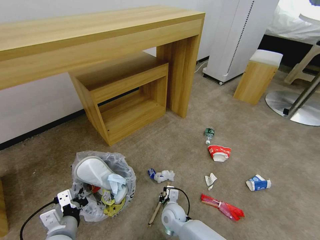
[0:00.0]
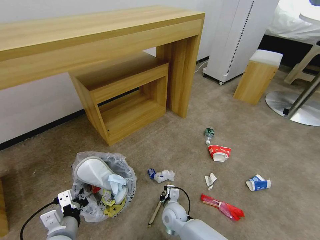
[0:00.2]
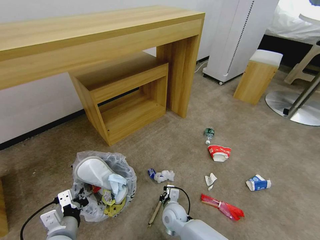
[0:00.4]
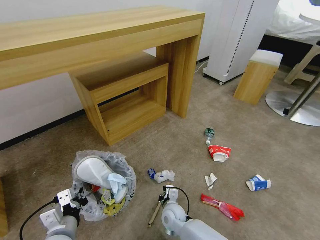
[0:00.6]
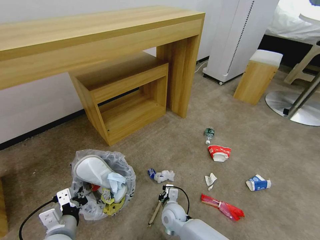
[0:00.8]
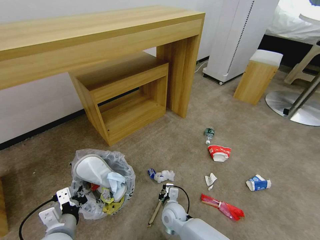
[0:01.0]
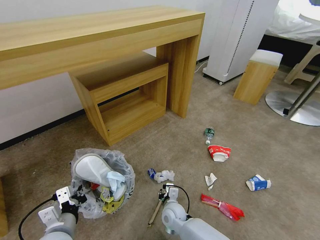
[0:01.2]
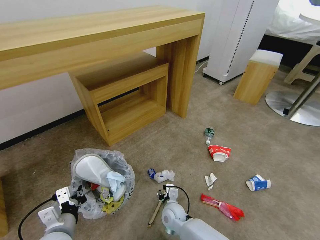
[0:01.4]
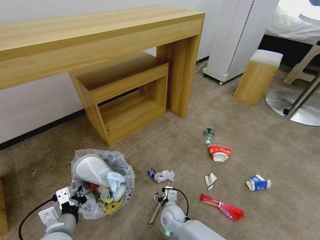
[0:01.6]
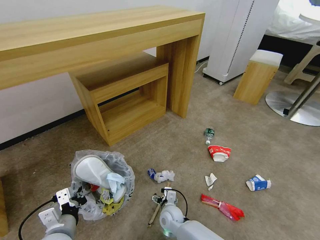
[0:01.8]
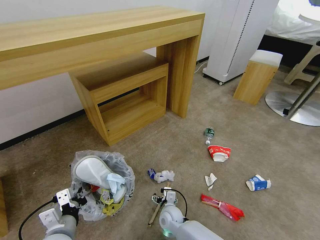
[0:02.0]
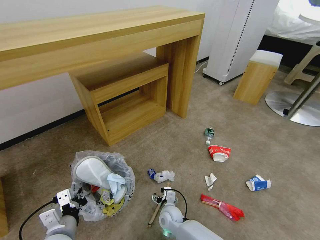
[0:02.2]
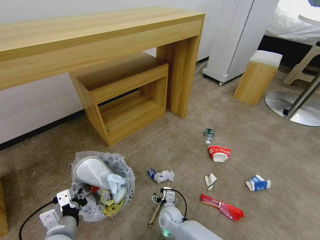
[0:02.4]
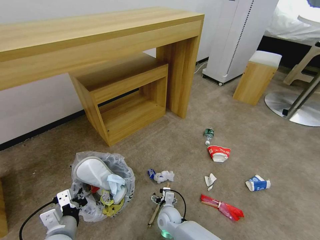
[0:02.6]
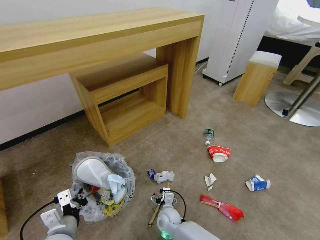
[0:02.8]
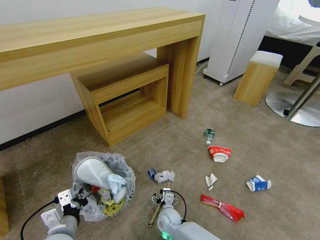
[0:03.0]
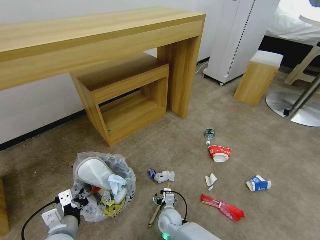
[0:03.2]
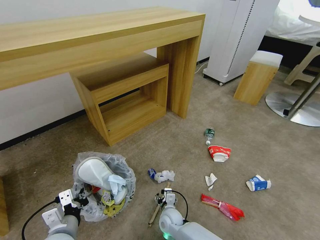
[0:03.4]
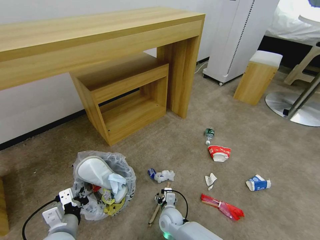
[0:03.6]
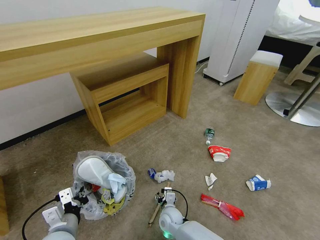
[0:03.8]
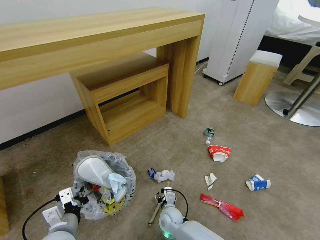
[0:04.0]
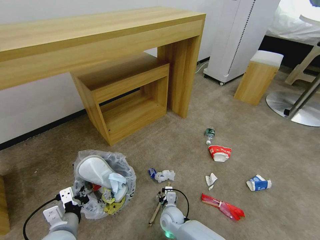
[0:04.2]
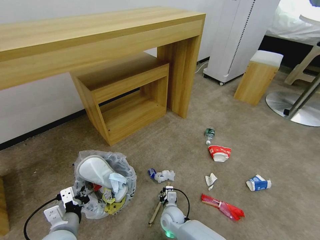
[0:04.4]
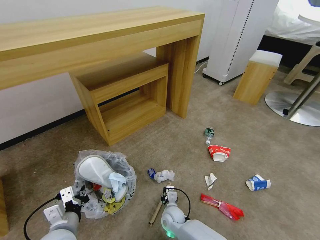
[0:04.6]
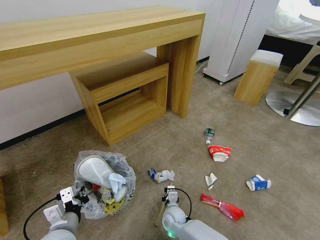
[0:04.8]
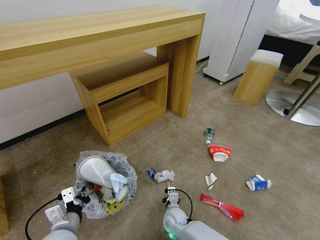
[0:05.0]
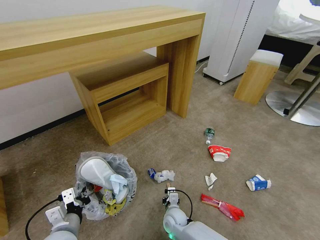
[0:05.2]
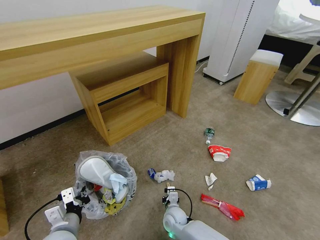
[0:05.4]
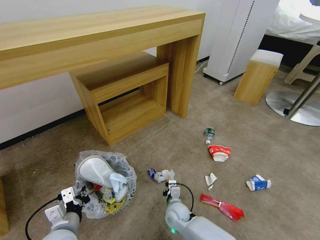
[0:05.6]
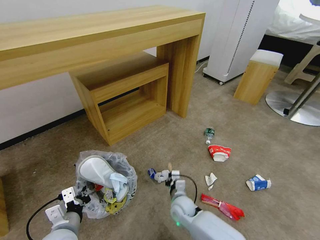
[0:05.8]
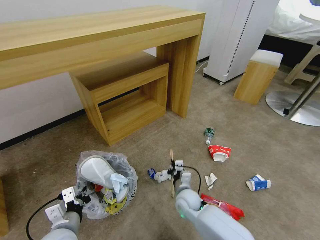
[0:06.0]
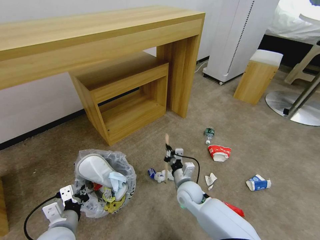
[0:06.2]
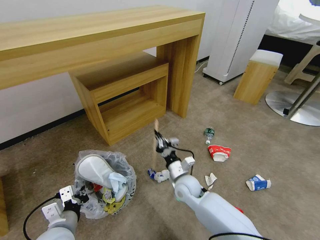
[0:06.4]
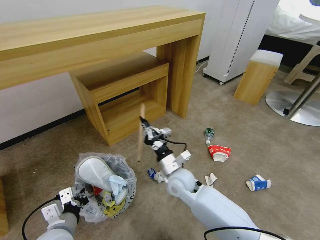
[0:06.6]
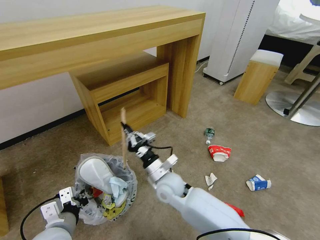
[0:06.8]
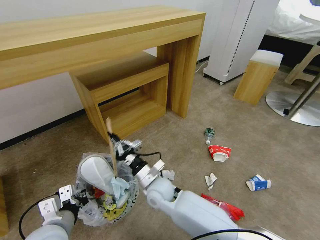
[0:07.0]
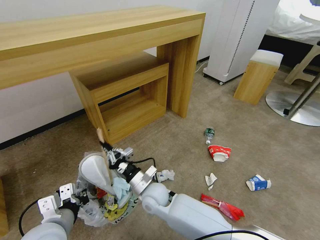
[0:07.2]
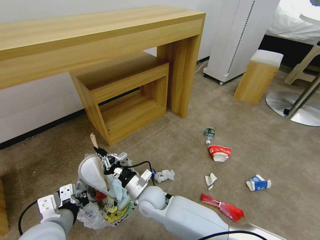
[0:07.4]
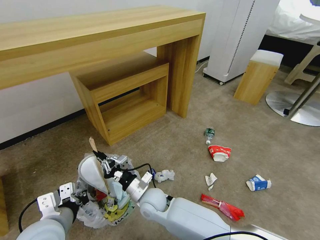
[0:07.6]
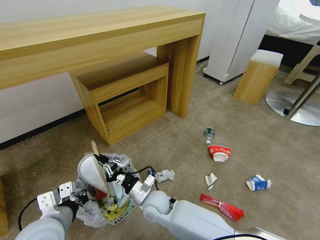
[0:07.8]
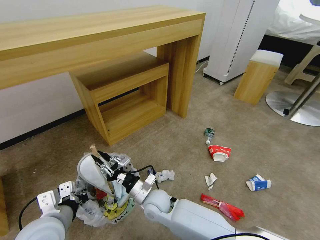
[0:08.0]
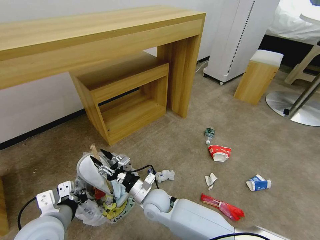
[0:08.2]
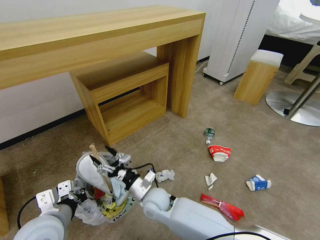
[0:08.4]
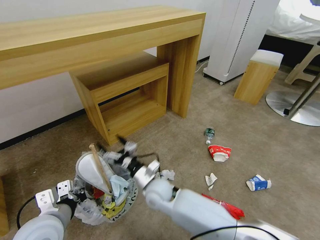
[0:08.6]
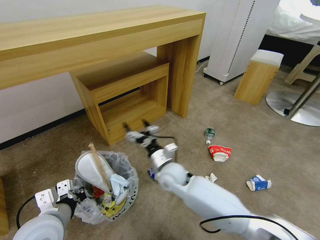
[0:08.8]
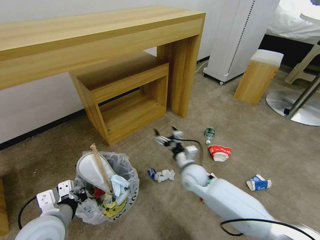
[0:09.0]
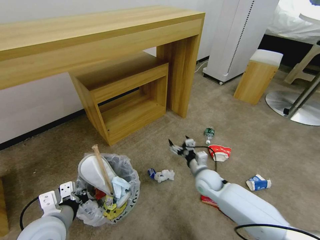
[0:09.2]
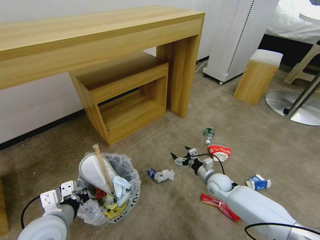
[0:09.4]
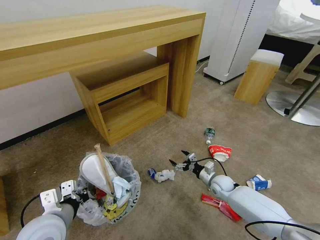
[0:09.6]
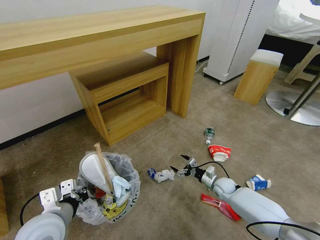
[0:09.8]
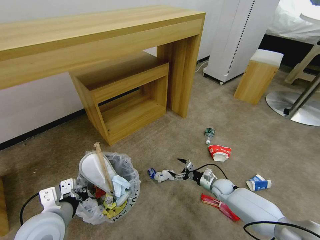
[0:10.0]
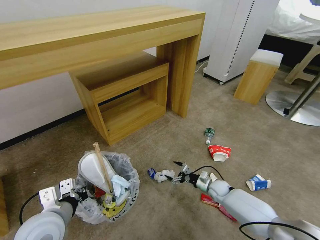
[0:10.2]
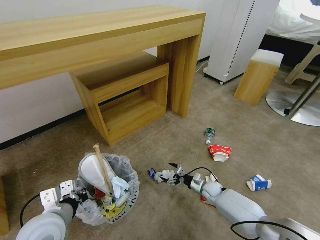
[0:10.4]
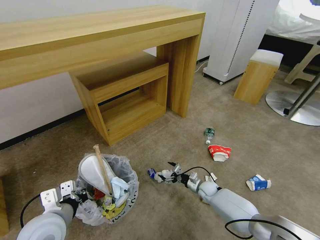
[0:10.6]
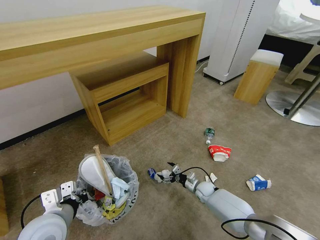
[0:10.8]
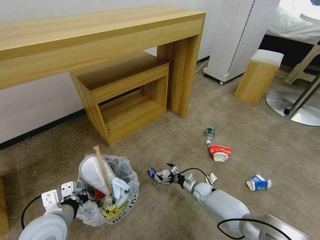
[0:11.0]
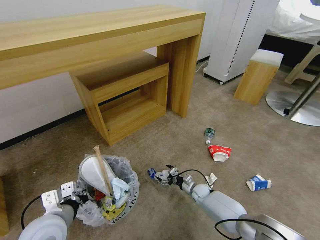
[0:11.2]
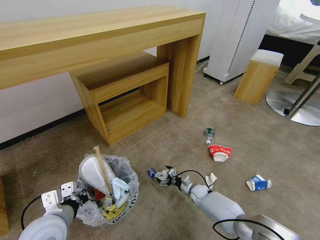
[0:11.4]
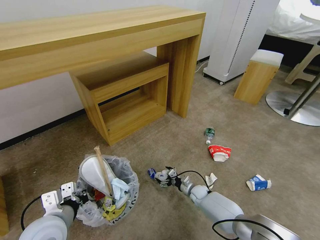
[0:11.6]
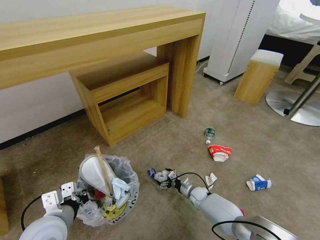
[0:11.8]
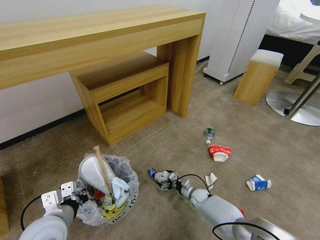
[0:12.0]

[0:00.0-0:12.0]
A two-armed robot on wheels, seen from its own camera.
Task of the whole recording: Pick up the trash bin and place the garbage on the floor into it.
0:00.0 to 0:01.6: The right gripper opens.
0:01.6 to 0:03.0: The grippers make only small movements.
0:03.0 to 0:04.4: The right gripper closes its fingers.
0:04.4 to 0:06.0: The right gripper heads upward and to the right, covering some 10 cm, and closes.
0:06.0 to 0:07.6: The left gripper travels upward by approximately 10 cm, while the right gripper heads to the left and upward, covering approximately 15 cm.
0:07.6 to 0:09.0: The right gripper heads to the right and forward, covering roughly 15 cm, and opens its fingers.
0:09.0 to 0:10.4: The right gripper heads downward and to the right, covering some 25 cm.
0:10.4 to 0:12.0: The right gripper heads downward, covering roughly 5 cm.

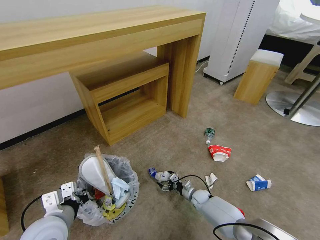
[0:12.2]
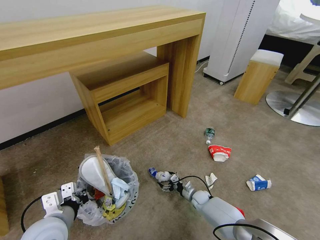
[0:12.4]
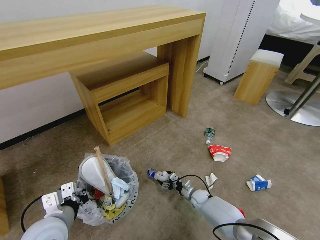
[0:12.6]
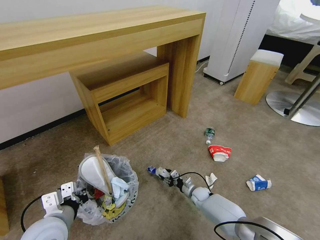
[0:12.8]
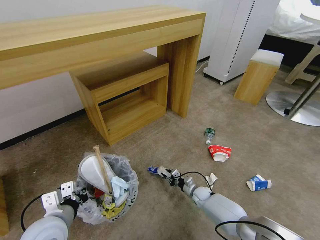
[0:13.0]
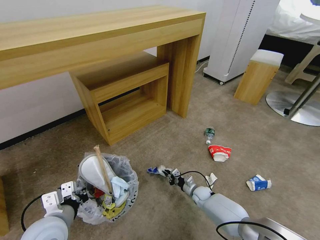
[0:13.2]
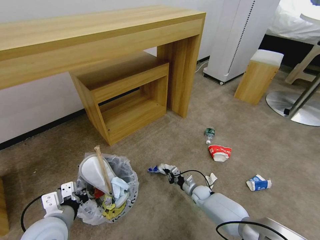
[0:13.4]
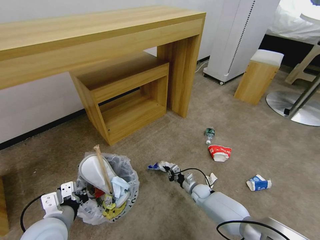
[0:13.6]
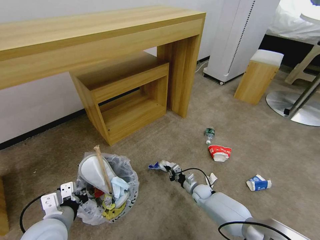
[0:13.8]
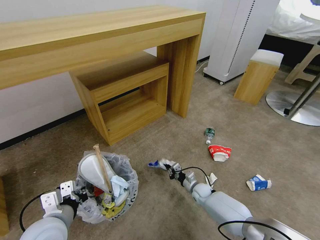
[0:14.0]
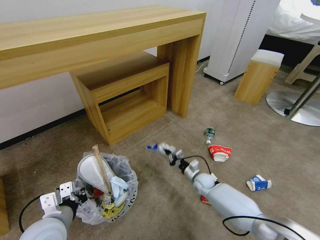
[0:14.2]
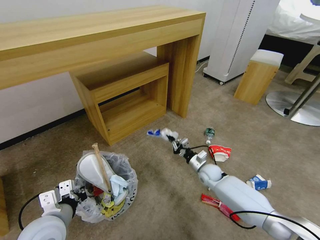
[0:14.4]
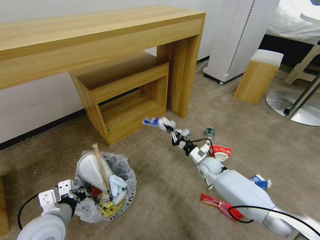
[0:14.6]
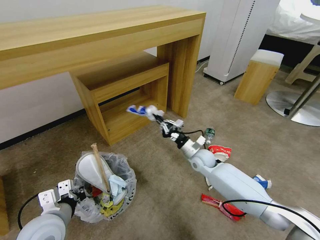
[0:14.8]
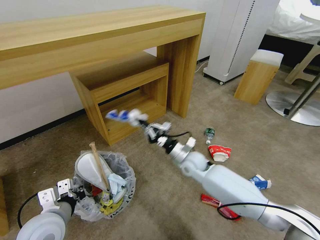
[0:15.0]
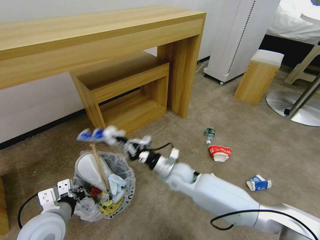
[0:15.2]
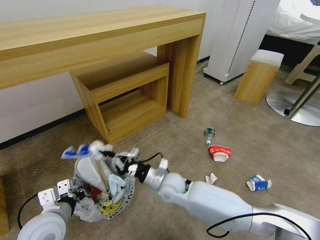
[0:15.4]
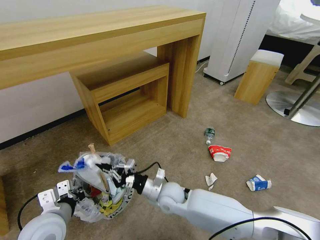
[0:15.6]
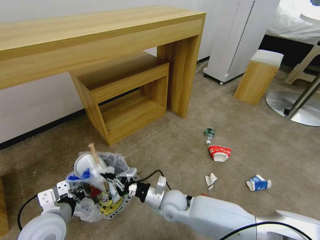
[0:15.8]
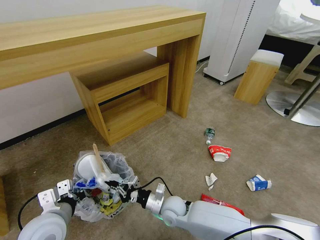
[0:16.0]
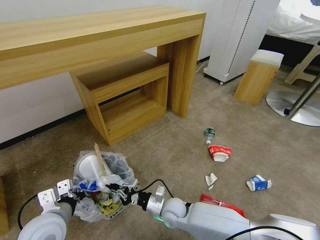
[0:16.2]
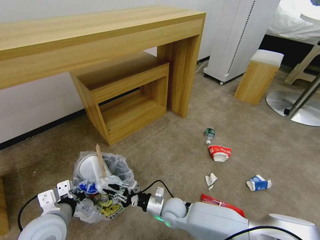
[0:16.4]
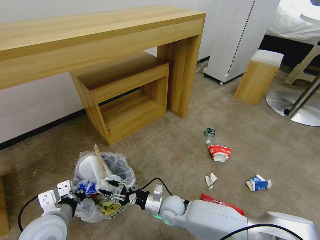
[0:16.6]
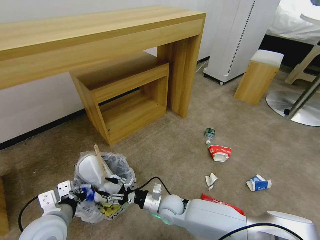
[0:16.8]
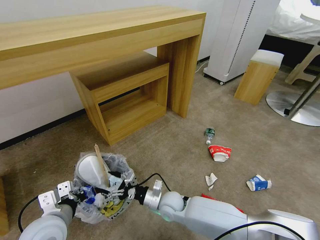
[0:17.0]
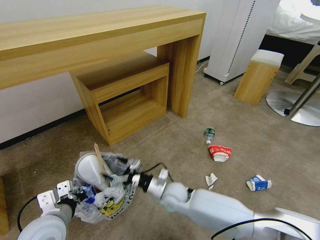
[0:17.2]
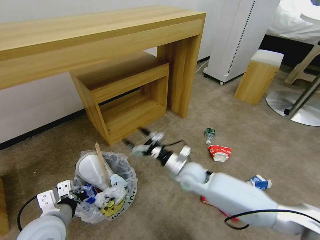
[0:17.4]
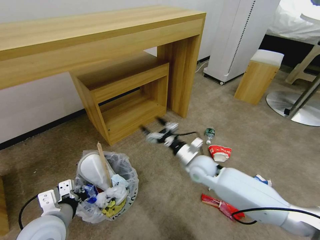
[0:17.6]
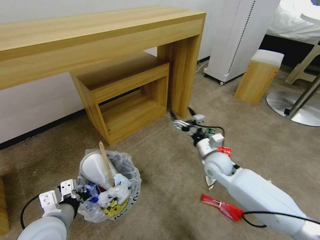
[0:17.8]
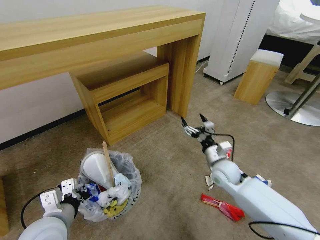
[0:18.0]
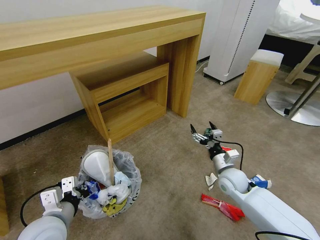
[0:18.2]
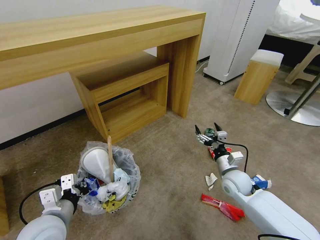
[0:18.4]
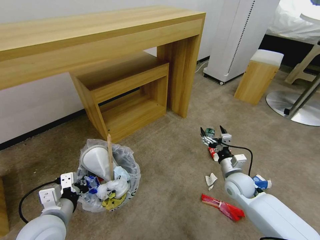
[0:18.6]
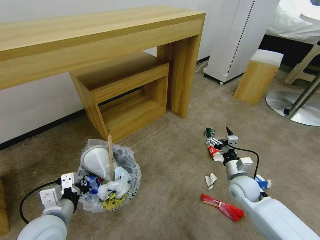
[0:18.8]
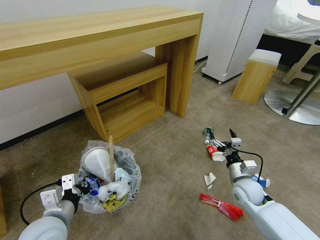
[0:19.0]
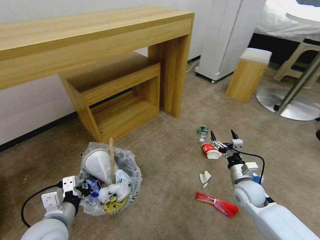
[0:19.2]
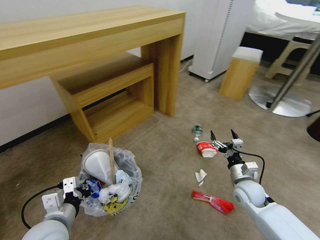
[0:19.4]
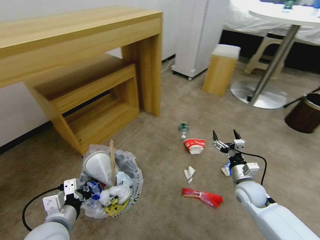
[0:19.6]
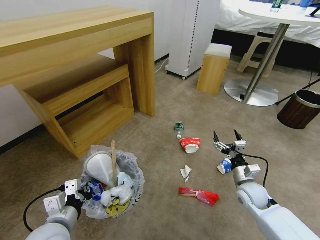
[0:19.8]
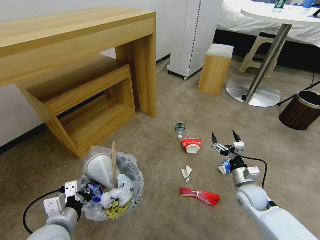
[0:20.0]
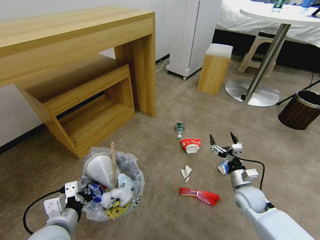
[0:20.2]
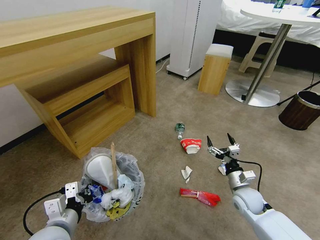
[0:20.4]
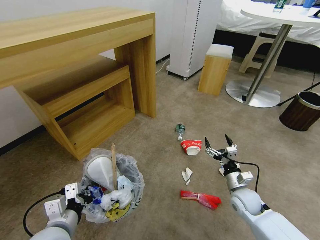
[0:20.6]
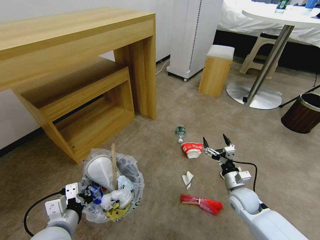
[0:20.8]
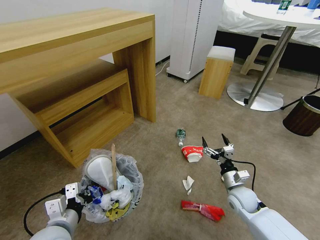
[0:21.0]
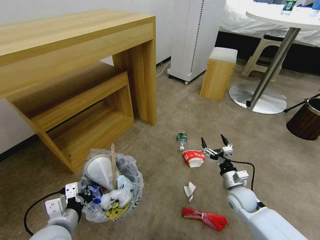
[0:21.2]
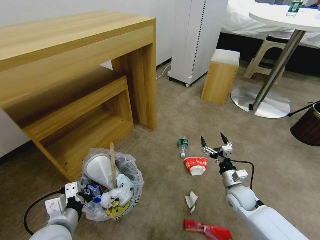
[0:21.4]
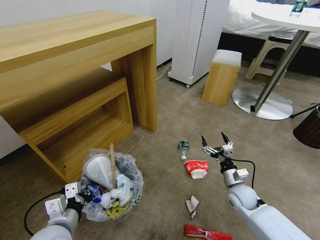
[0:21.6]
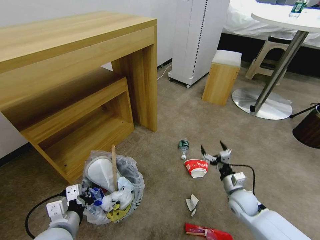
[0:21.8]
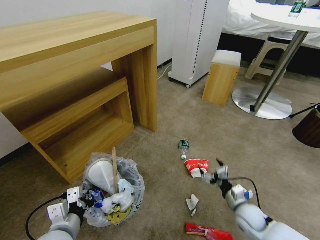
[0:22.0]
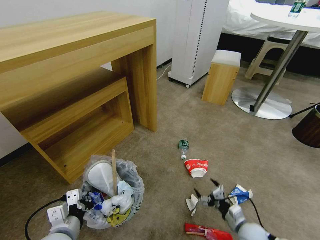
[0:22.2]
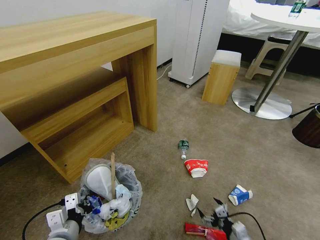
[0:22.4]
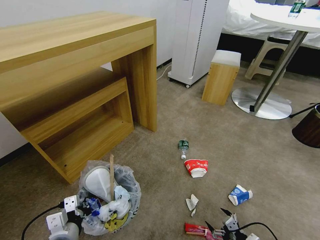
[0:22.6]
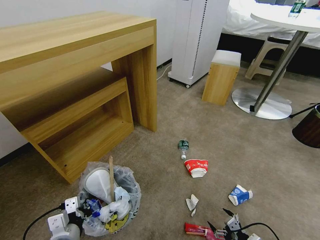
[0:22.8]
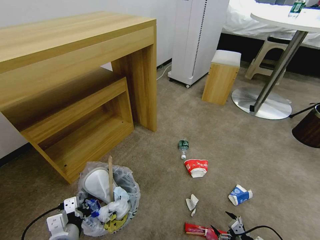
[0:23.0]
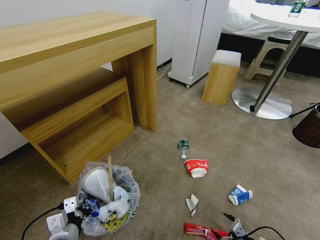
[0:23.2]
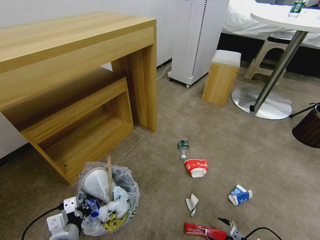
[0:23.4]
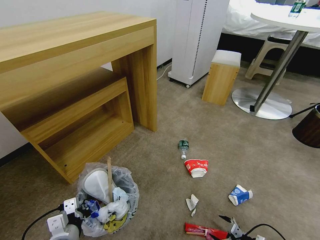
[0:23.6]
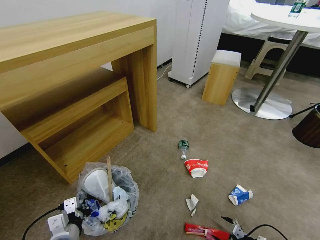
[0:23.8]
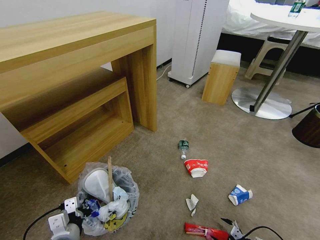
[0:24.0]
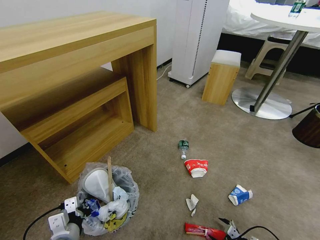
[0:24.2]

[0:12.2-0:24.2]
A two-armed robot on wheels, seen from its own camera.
Task of the whole recording: Pick up the trash bin and place the garbage on the floor into it.
0:12.2 to 0:13.8: The right gripper closes its fingers.
0:13.8 to 0:15.2: The right gripper heads upward and to the left, covering approximately 25 cm.
0:15.2 to 0:16.6: The right gripper goes some 15 cm downward and backward, and opens.
0:16.6 to 0:18.2: The right gripper goes some 25 cm to the right and upward, and opens.
0:18.2 to 0:19.8: The right gripper is displaced to the right by approximately 5 cm.
0:21.2 to 0:22.6: The right gripper is displaced backward by some 20 cm.
0:22.6 to 0:24.2: The right gripper heads downward and to the right, covering approximately 10 cm.
